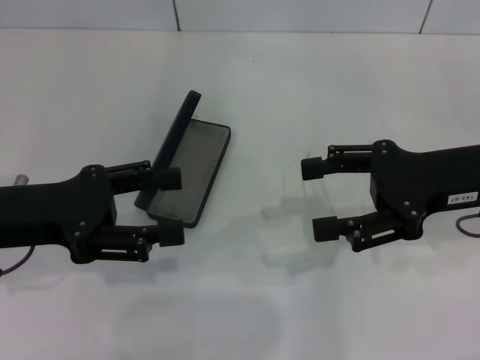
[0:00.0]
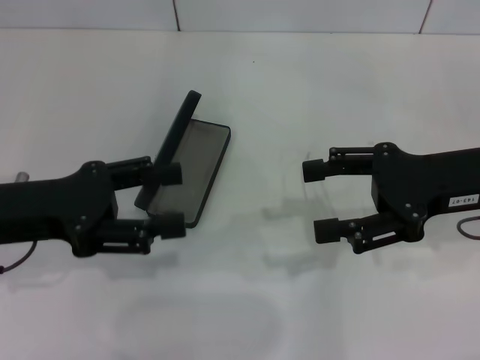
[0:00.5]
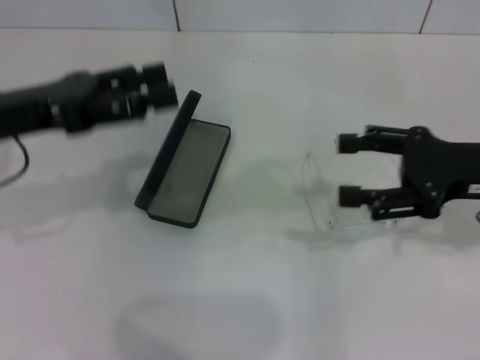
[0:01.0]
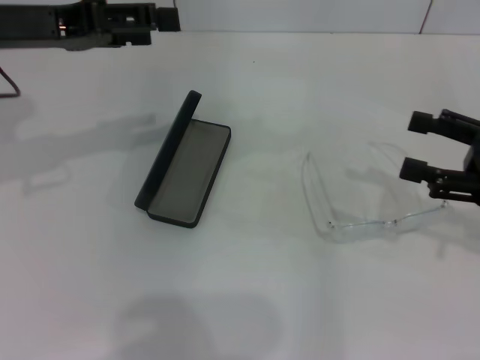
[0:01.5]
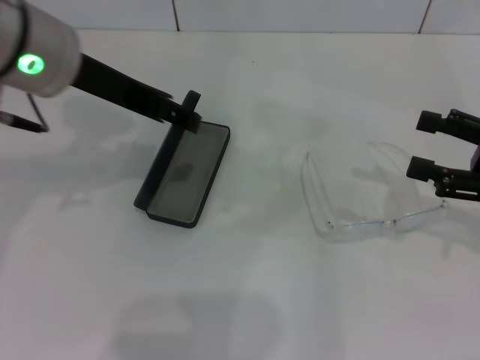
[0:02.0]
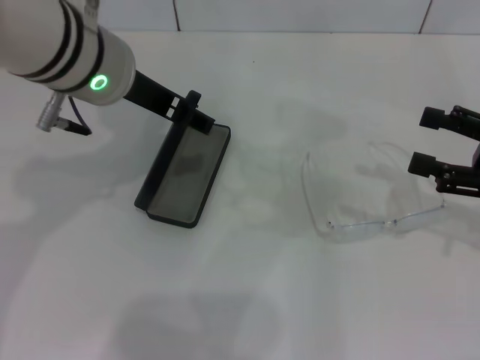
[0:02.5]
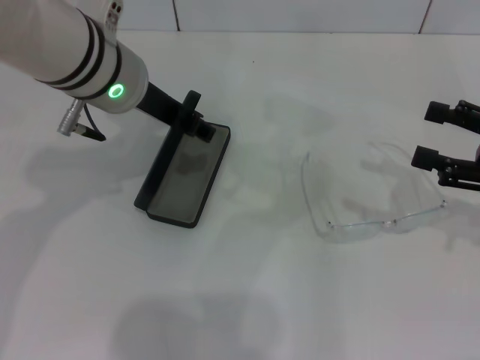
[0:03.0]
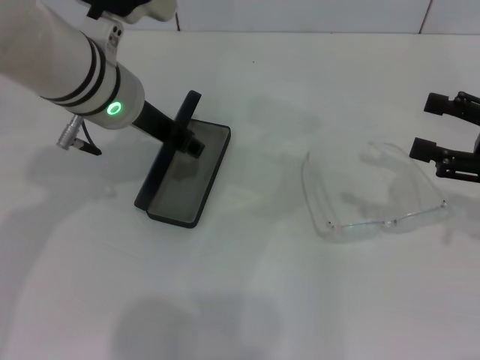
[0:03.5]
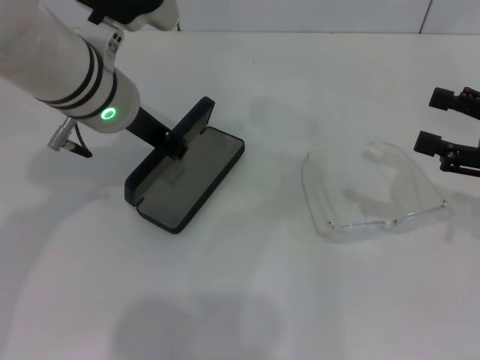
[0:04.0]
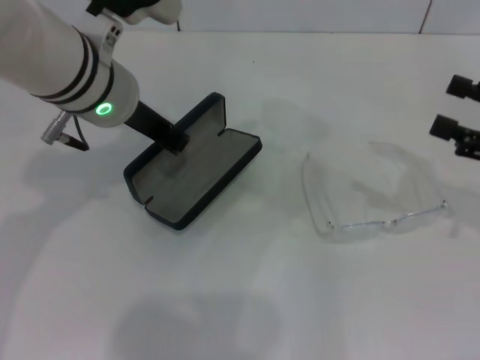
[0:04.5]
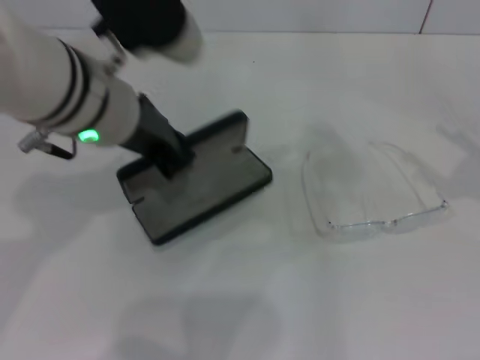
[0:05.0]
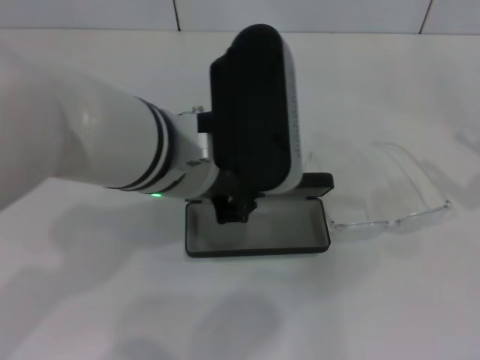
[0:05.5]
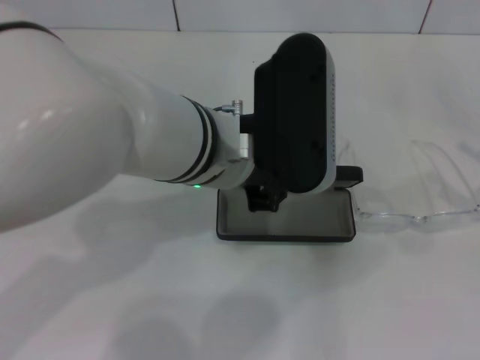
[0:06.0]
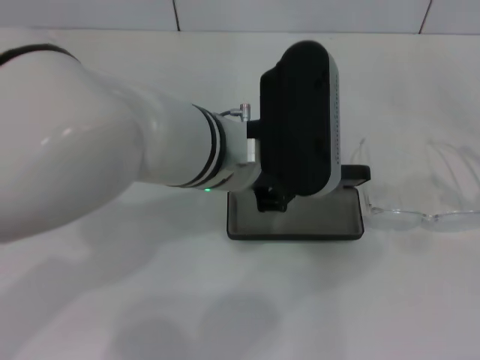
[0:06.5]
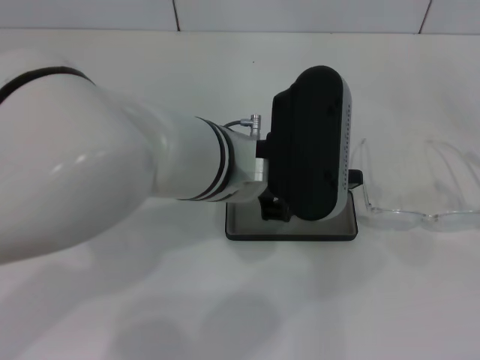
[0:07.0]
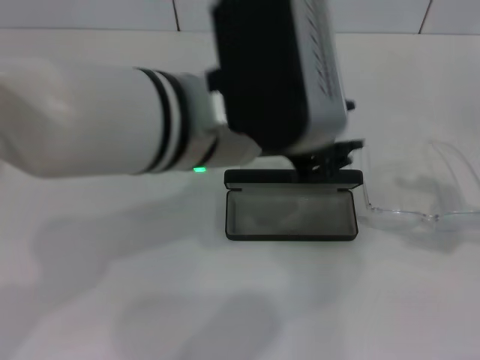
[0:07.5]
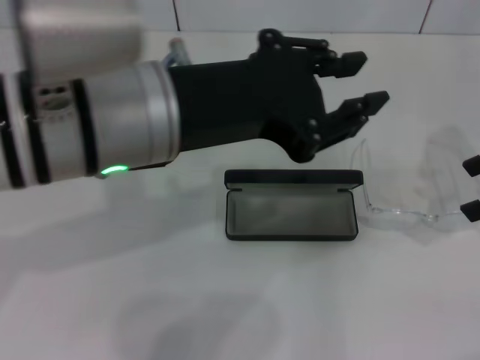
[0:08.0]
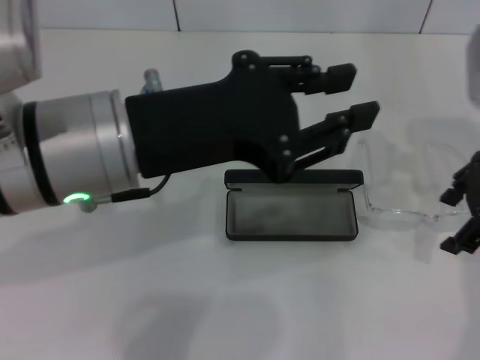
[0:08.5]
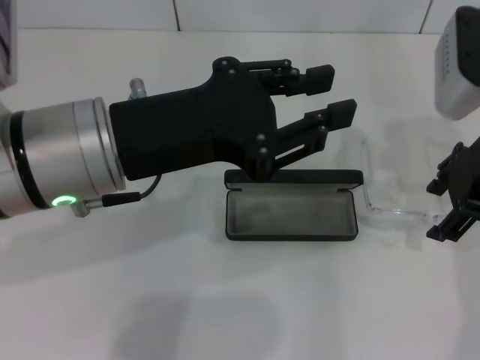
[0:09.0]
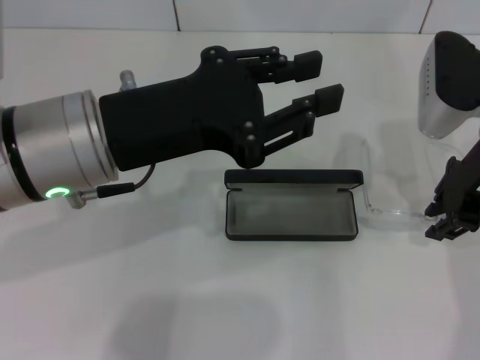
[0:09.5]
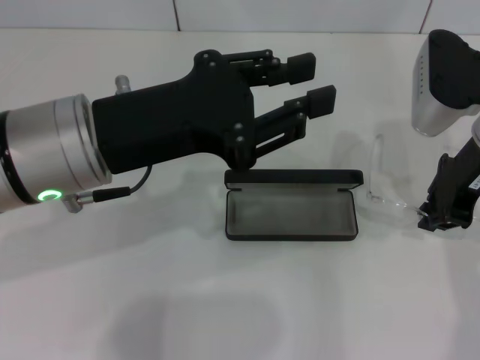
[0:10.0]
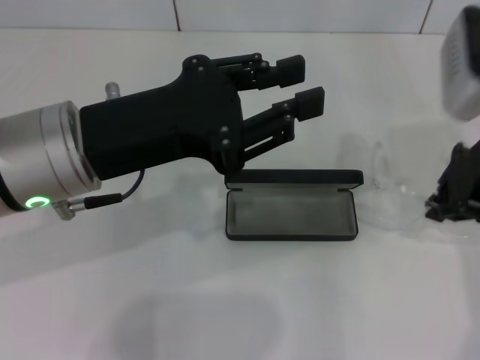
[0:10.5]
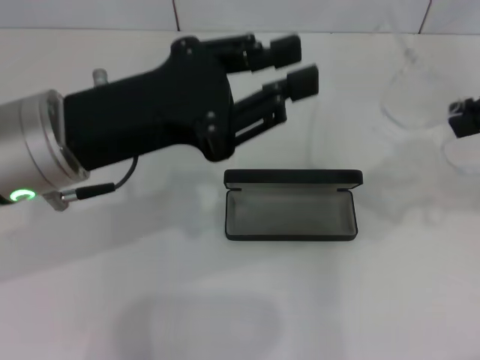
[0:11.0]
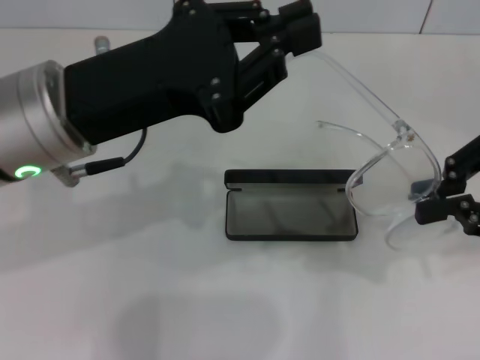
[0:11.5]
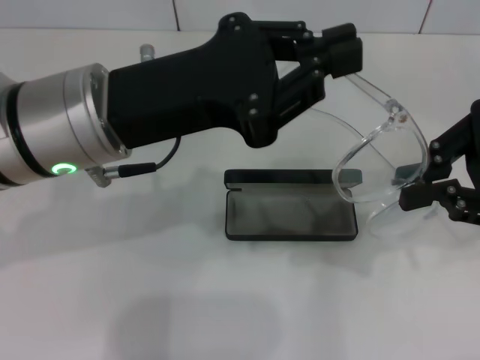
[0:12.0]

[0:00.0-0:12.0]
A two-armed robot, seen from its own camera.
Step, 0:00.0 to 0:04.0: Grab the glasses case with your left hand.
Step, 0:04.5 to 0:07.0: Place the glasses case in the center of the table with your left hand.
Step, 0:07.5 to 0:09.5: Grab the eyeglass frame with your right hand.
0:00.0 to 0:02.0: The left gripper travels upward, to the right and forward by some 15 cm. The right gripper goes some 10 cm to the right.
0:02.0 to 0:04.0: The left gripper heads downward, covering approximately 10 cm, and closes its fingers.
0:04.0 to 0:06.0: The right gripper moves backward and to the right, about 10 cm, while the left gripper moves to the right and backward, approximately 10 cm.
0:06.0 to 0:08.0: The right gripper travels forward, upward and to the left by some 15 cm. Meanwhile the left gripper travels to the left and upward by about 10 cm.
0:08.0 to 0:10.0: The left gripper moves some 5 cm. The right gripper heads to the left, covering some 10 cm, and closes its fingers.
0:10.0 to 0:12.0: The right gripper shifts some 10 cm backward, to the right and upward.

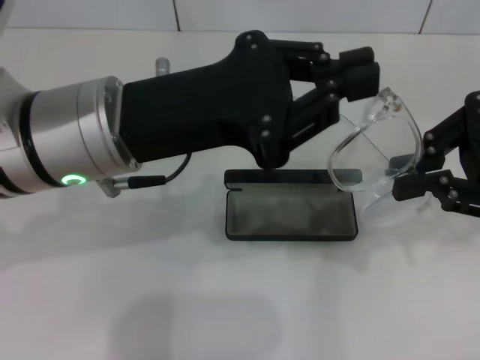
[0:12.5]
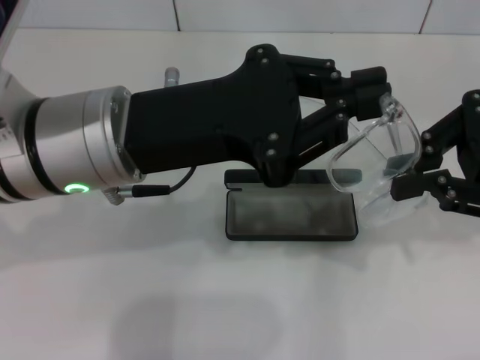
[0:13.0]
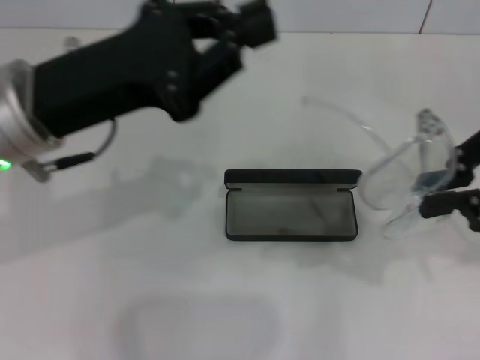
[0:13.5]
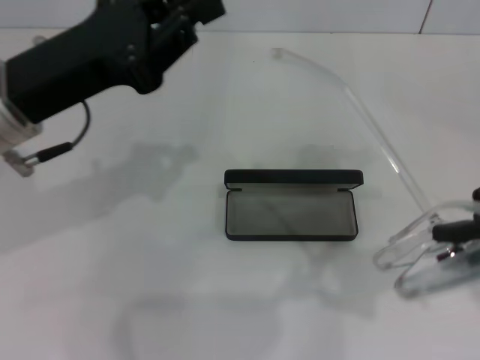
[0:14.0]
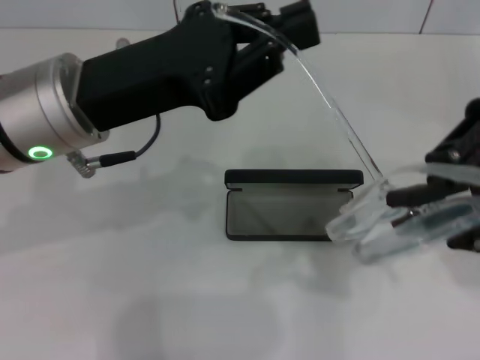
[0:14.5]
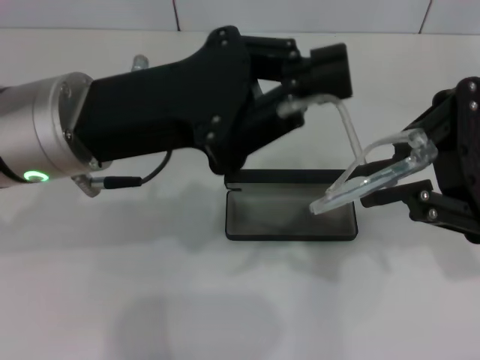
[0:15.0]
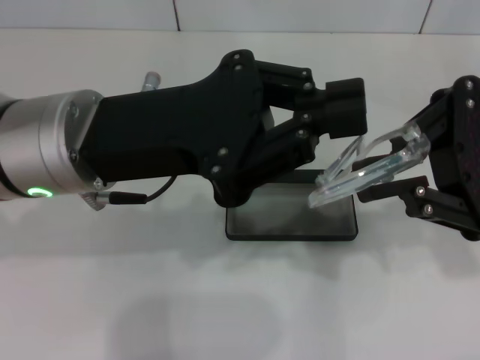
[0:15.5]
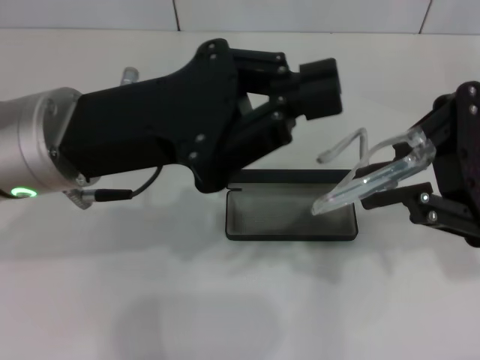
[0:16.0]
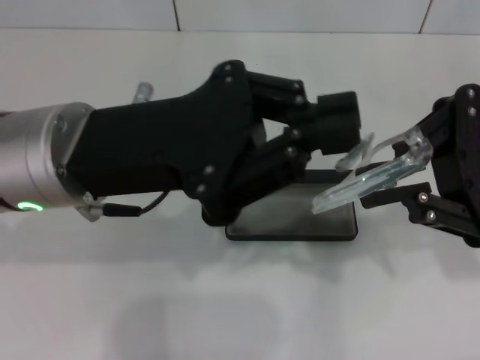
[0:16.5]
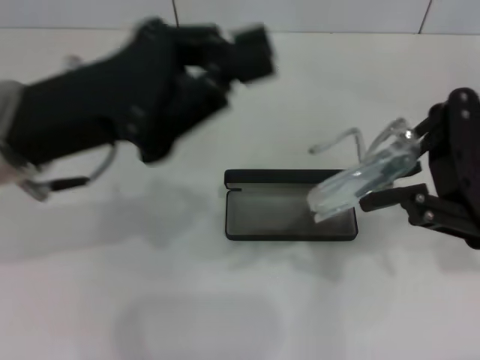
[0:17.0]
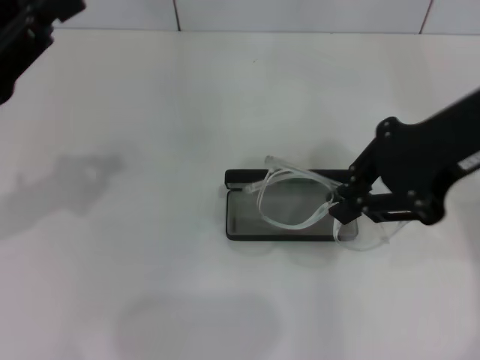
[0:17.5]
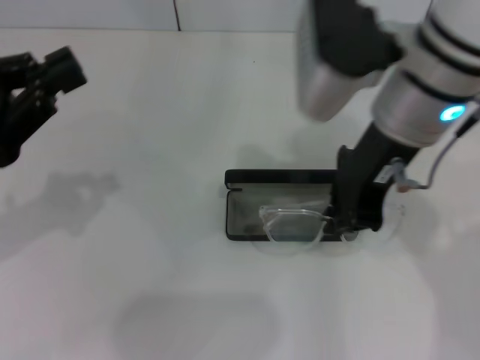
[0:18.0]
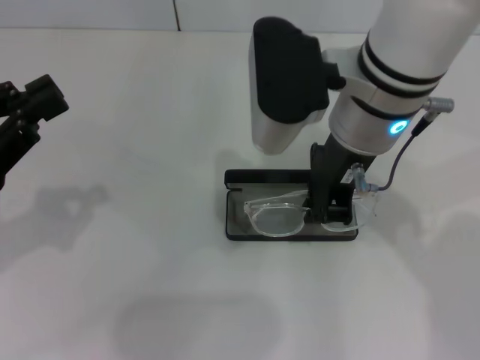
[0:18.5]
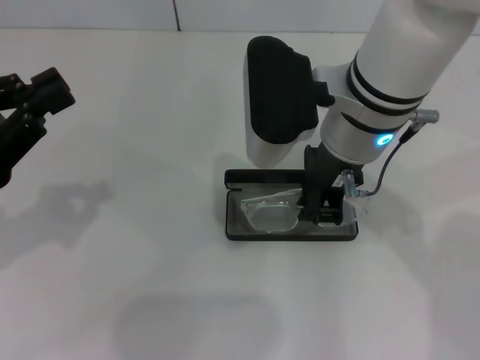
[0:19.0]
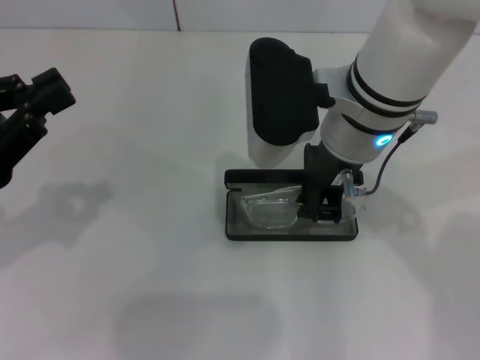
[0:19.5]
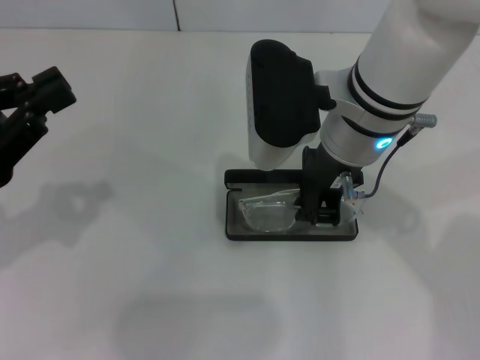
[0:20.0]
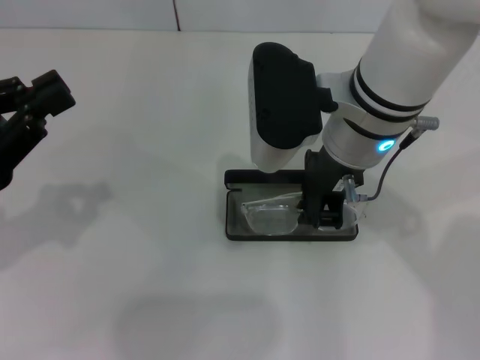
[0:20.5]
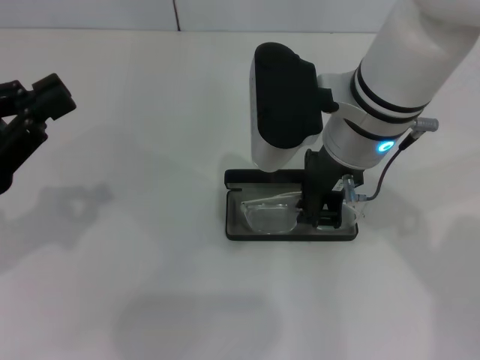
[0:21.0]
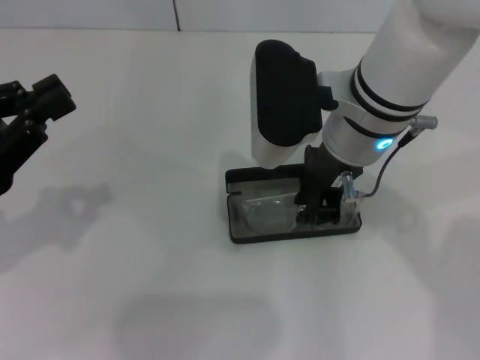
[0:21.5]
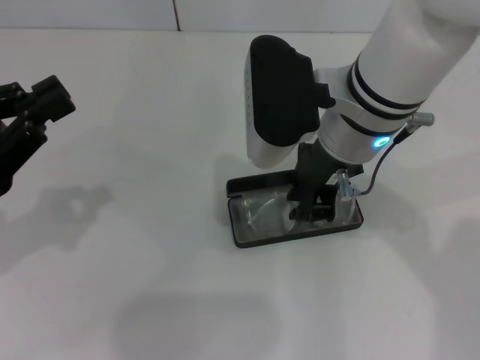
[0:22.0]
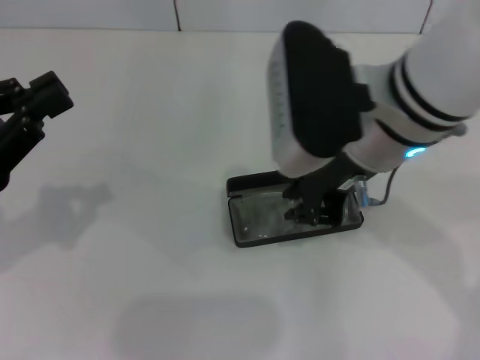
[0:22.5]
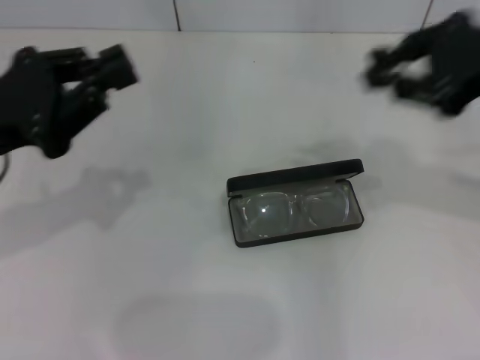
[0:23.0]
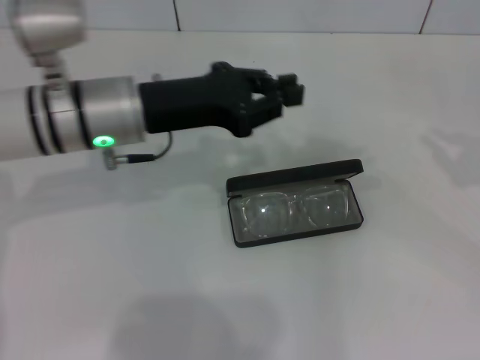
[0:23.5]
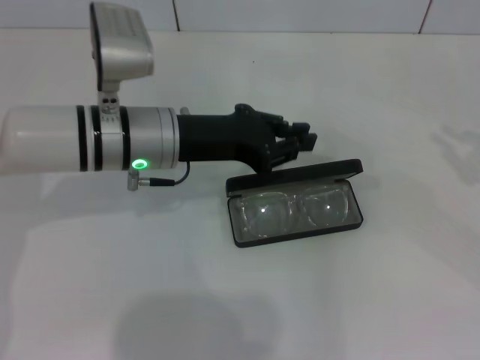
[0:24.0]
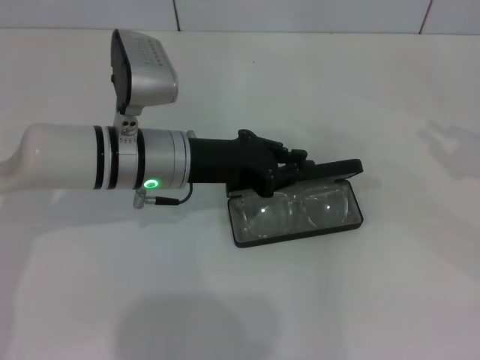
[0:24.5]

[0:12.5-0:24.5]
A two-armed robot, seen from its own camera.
Step, 0:12.5 to 0:15.5: Fold the frame with your left hand.
Step, 0:16.0 to 0:22.0: Put the glasses into the case with your right hand.
0:12.5 to 0:14.5: The left gripper reaches some 5 cm to the left, then returns.
0:16.5 to 0:18.5: The grippers both shift to the left by roughly 15 cm.
0:18.5 to 0:22.5: There are only small adjustments of the grippers.
0:22.5 to 0:24.5: The right gripper is displaced to the right by roughly 30 cm. The left gripper heads to the right, forward and downward, covering some 25 cm.

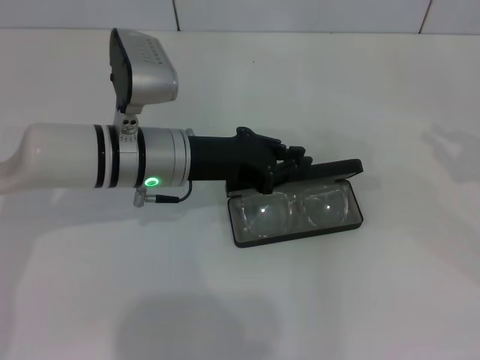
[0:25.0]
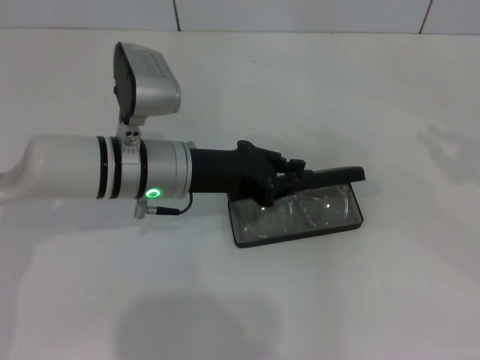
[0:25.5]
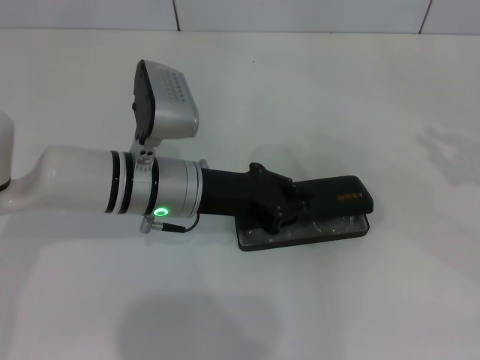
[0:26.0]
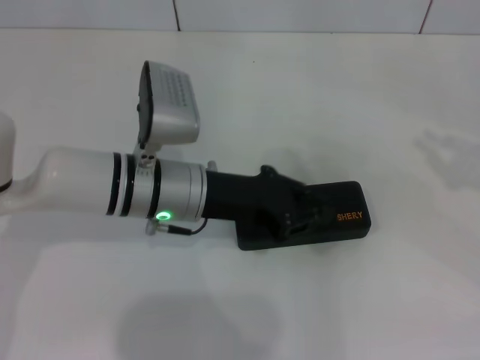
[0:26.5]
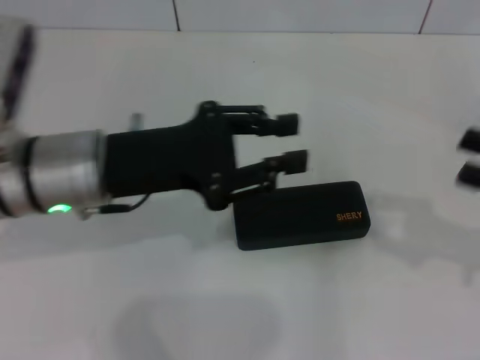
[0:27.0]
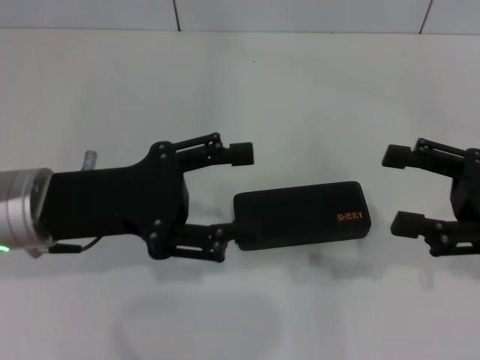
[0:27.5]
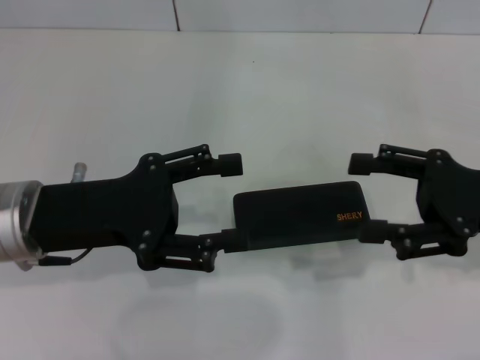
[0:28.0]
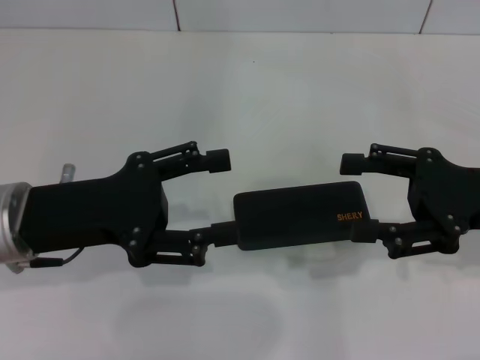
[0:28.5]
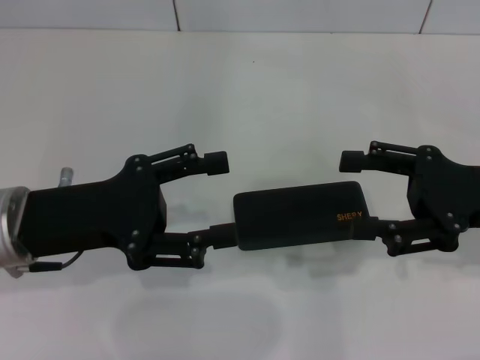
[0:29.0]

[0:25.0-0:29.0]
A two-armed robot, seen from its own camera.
0:25.0 to 0:27.0: The left gripper moves backward and upward, roughly 10 cm, while the right gripper heads to the left, covering about 5 cm.
0:27.0 to 0:29.0: The grippers both shift to the left by some 5 cm. The right gripper opens its fingers, while the left gripper opens.
